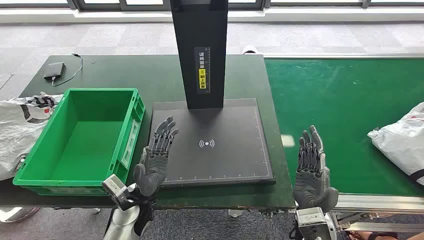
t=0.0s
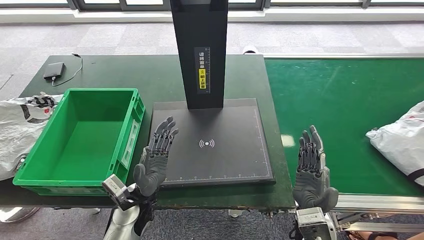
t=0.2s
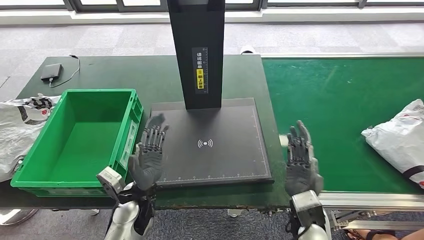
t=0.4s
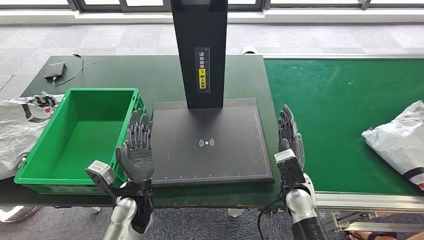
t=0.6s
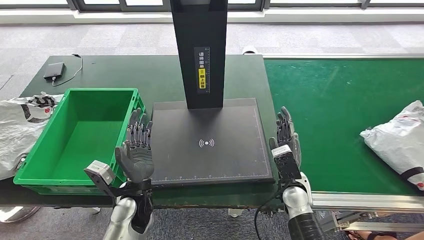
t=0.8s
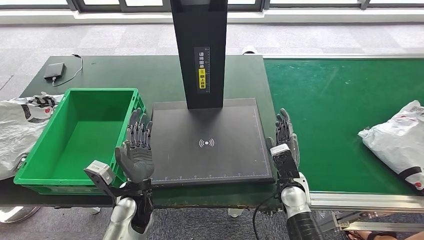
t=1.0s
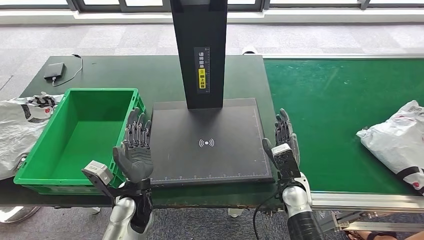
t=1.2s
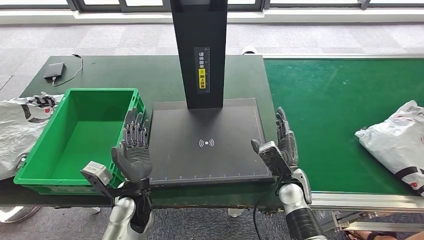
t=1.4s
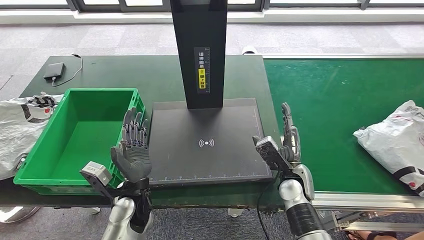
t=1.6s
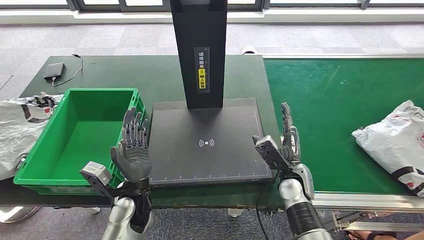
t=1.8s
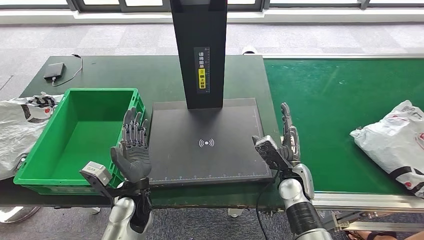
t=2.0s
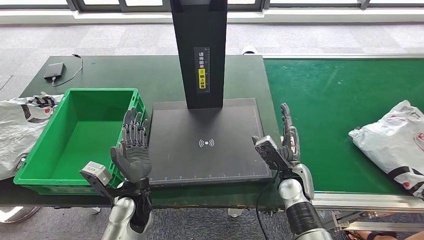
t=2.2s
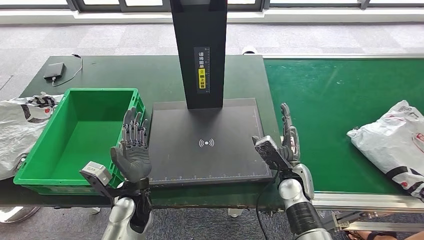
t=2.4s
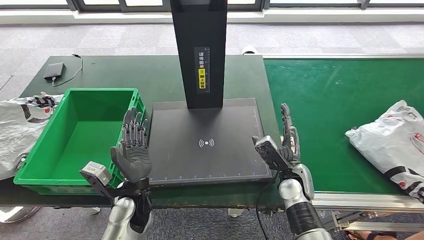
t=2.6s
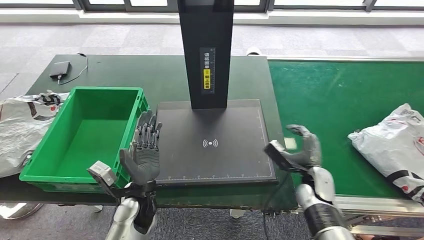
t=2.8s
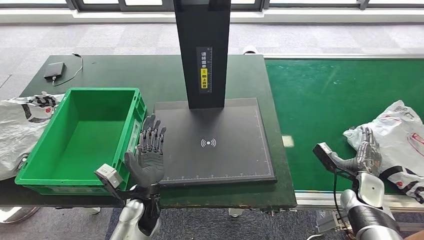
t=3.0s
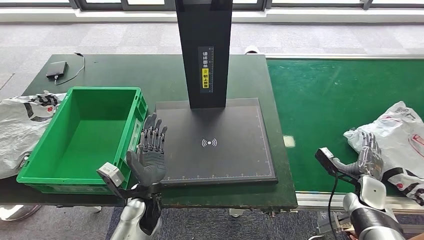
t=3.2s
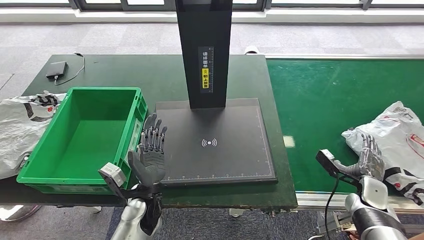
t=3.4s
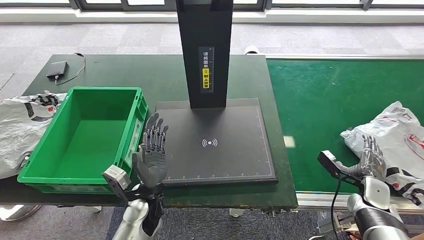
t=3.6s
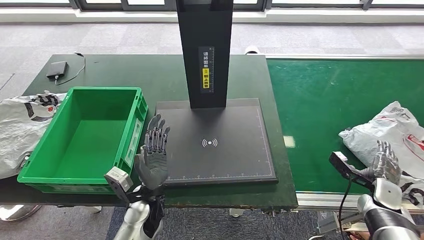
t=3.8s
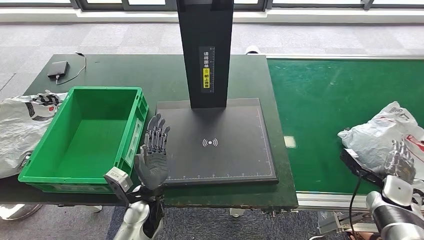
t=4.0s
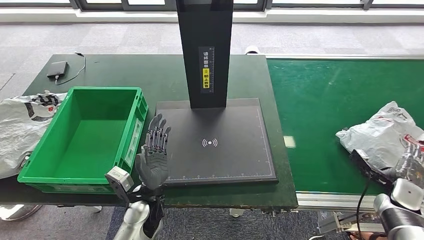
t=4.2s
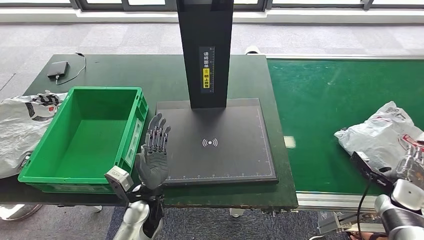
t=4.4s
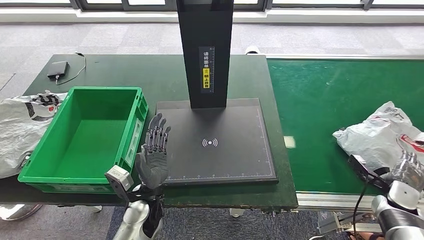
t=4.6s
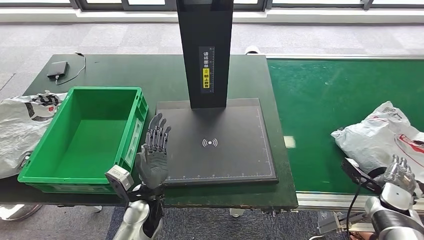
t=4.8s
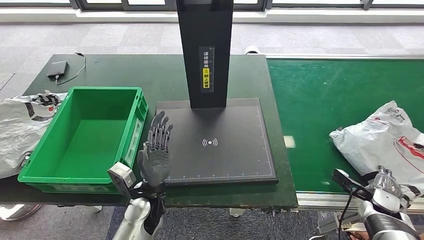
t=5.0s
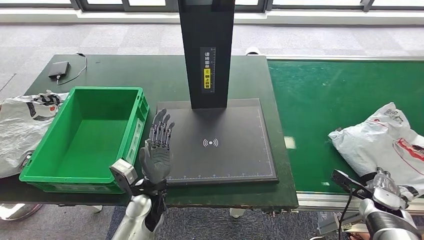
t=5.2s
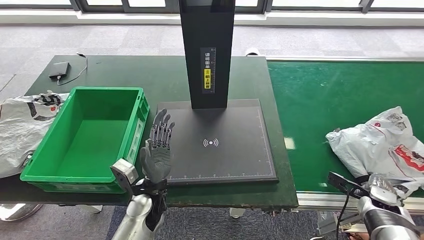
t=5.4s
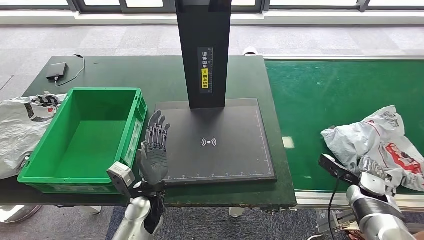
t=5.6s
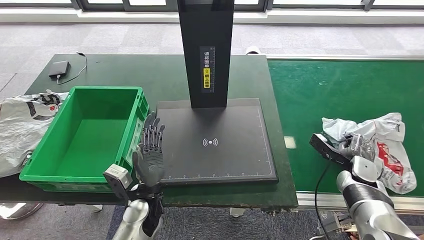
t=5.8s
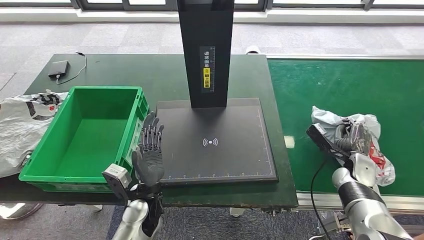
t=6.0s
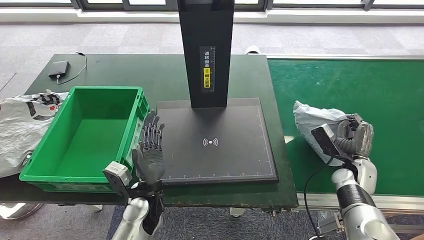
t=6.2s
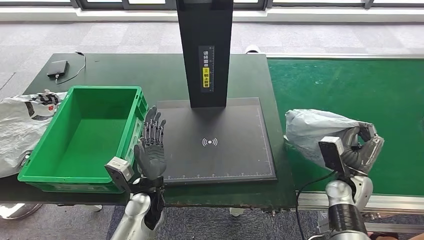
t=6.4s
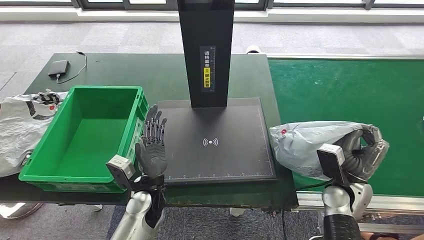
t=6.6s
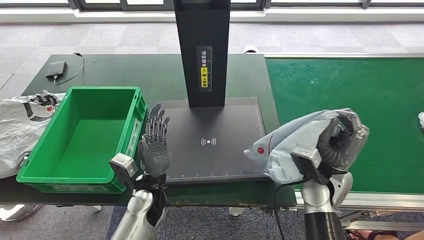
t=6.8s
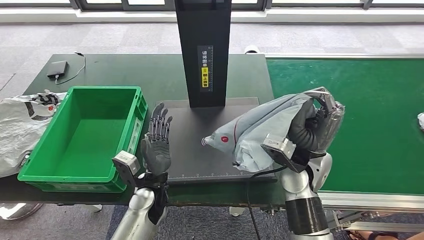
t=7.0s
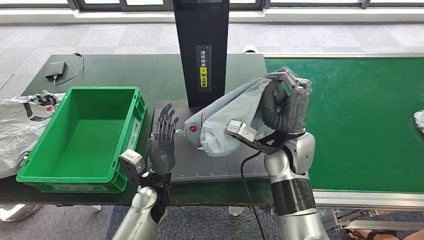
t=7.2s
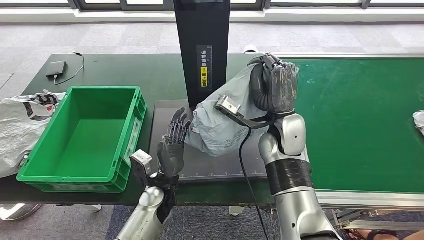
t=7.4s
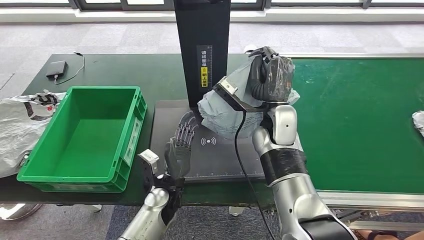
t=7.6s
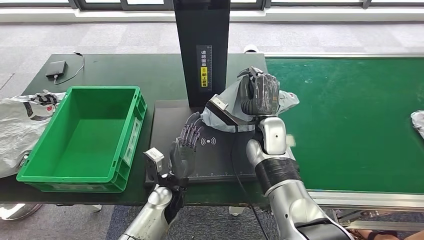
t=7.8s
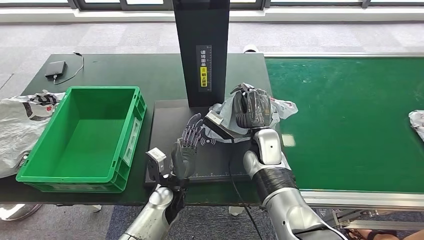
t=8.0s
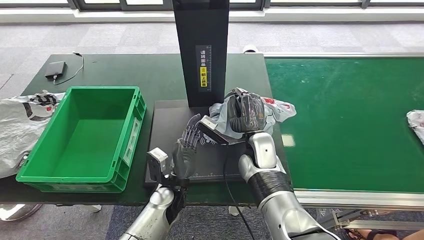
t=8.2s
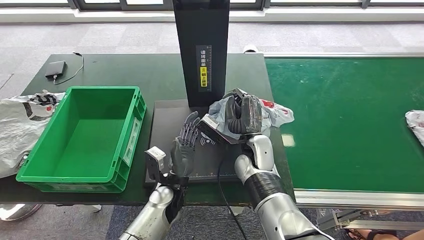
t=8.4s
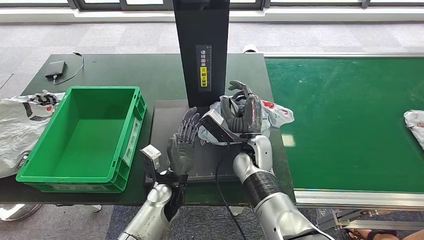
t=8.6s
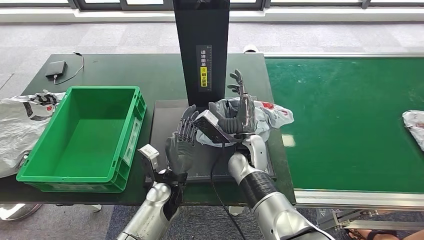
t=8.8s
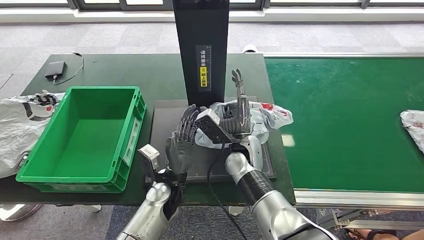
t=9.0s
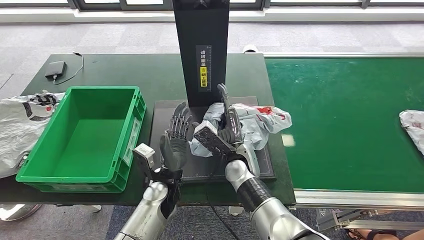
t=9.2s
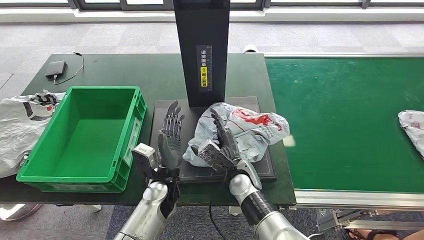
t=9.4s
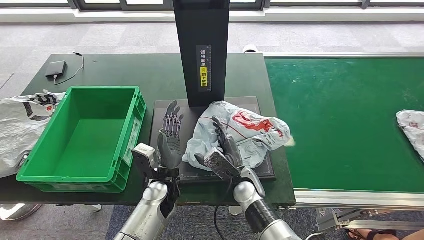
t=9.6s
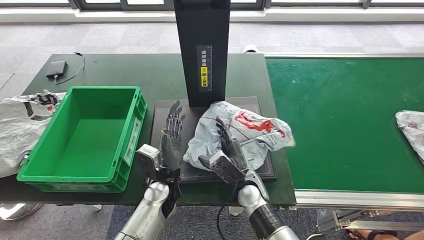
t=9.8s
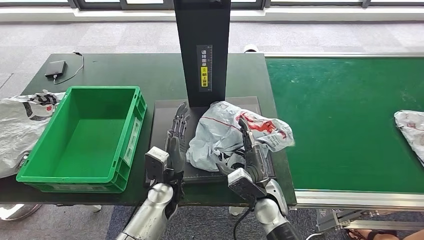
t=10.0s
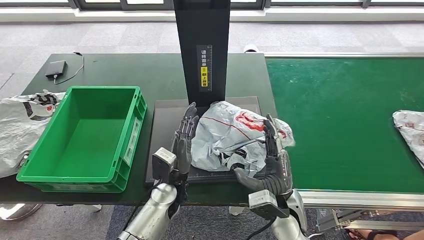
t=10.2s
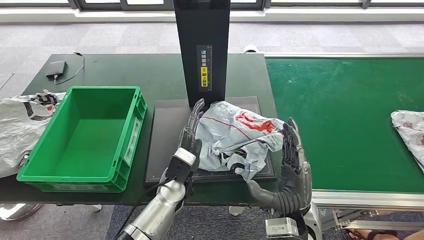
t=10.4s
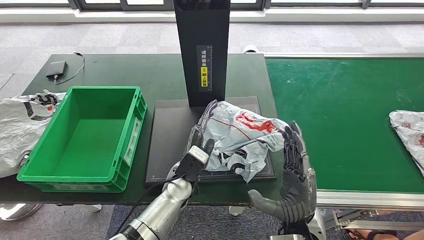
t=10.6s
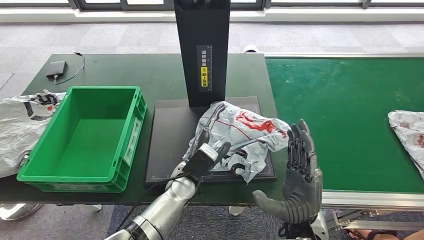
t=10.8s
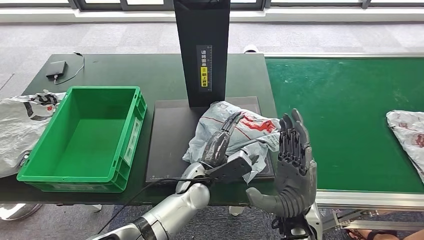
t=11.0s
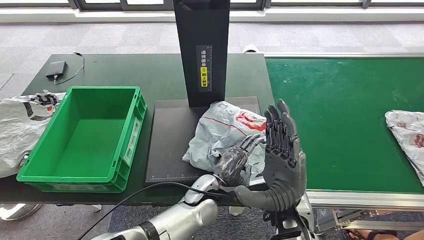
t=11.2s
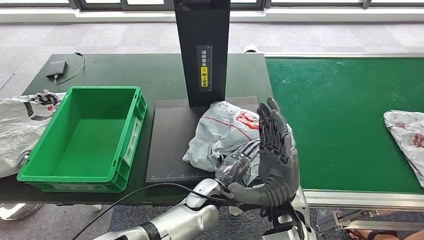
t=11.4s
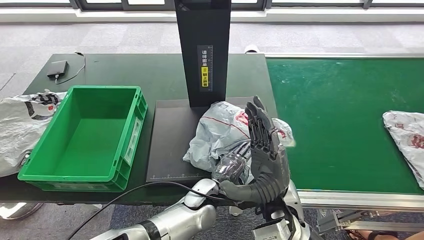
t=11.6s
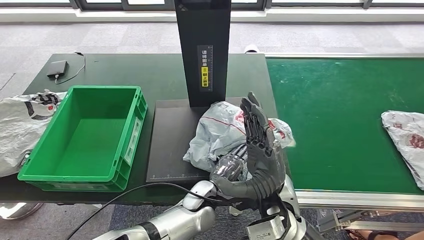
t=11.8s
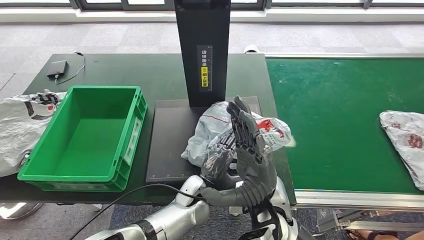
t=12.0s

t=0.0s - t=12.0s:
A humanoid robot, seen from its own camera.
Step, t=0.0s - t=6.4s: Take the parcel off the conveyor belt.
Step, t=6.6s - t=10.2s: Place the parcel onto the inbound machine.
t=1.6s - t=3.0s: The right hand goes approximately 20 cm to the right.
t=3.0s - t=4.4s: The right hand moves to the right, roughly 10 cm.
t=4.4s - t=6.0s: The right hand goes about 15 cm to the left and forward.
t=7.6s - t=9.0s: The right hand travels downward and to the left by some 10 cm.
t=9.0s - t=10.4s: The right hand moves backward and to the right, some 20 cm.
t=10.4s - t=12.0s: The right hand goes about 10 cm to the left and upward.

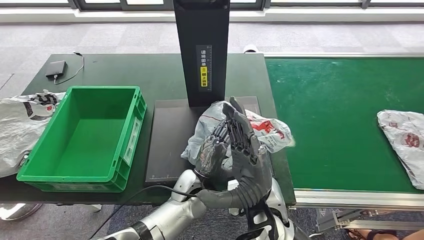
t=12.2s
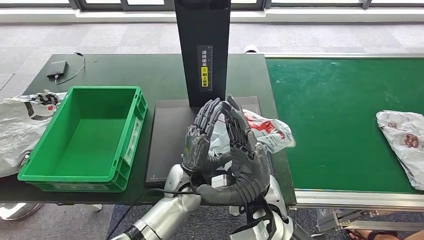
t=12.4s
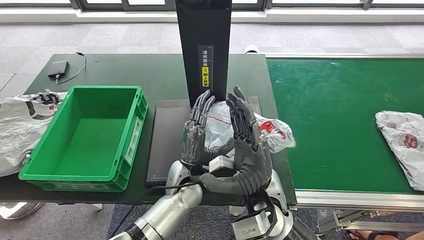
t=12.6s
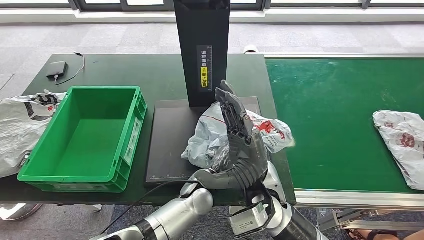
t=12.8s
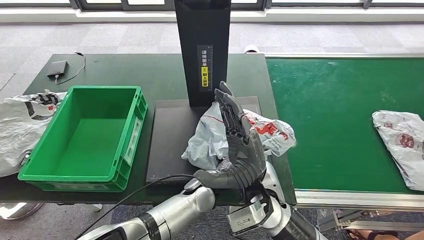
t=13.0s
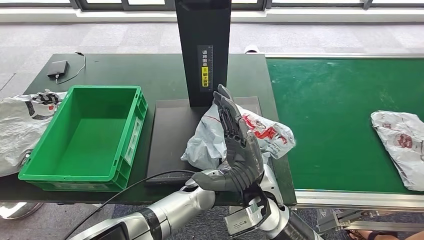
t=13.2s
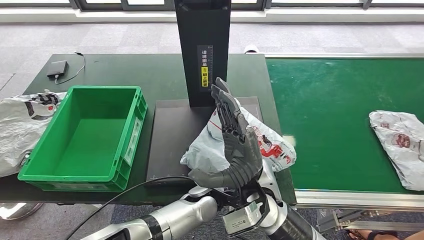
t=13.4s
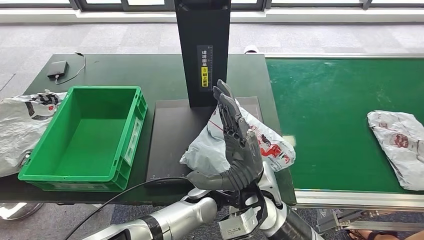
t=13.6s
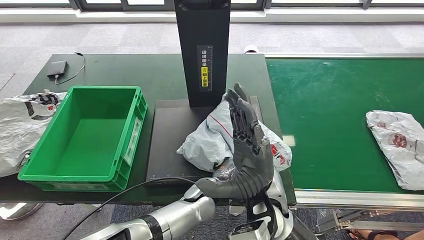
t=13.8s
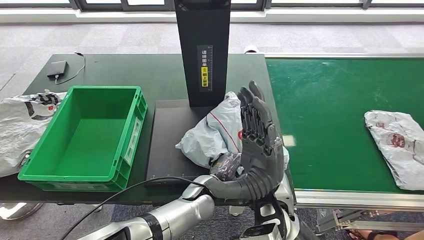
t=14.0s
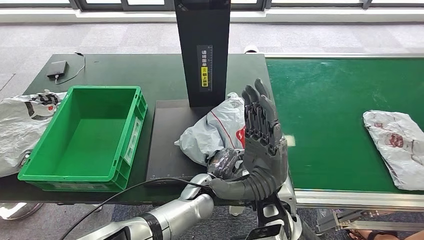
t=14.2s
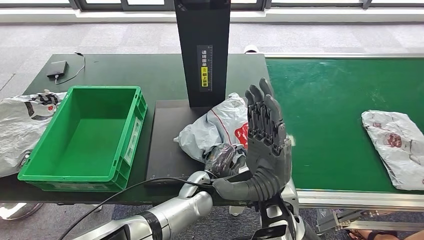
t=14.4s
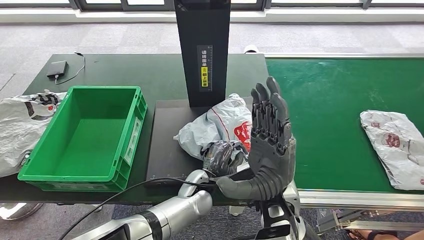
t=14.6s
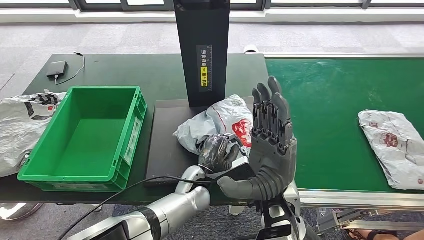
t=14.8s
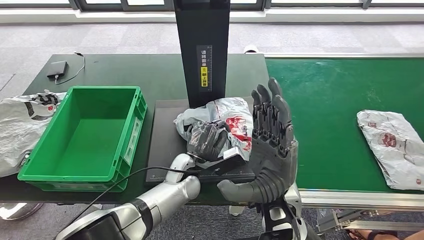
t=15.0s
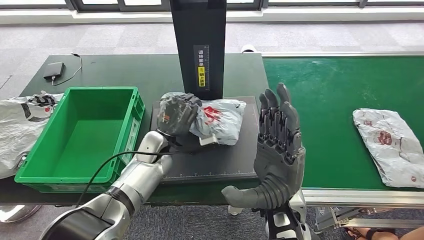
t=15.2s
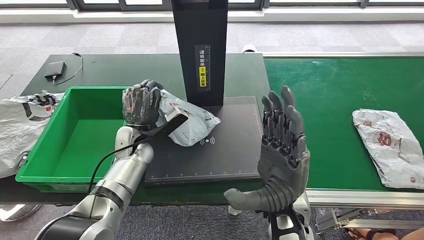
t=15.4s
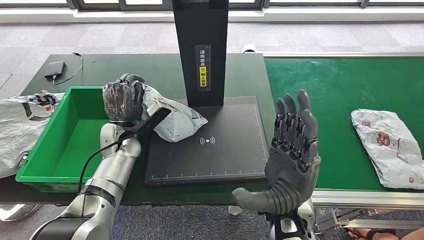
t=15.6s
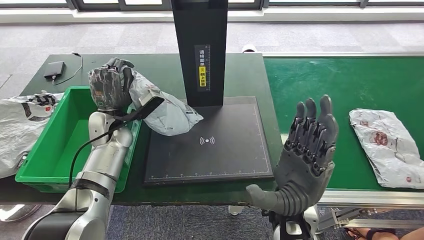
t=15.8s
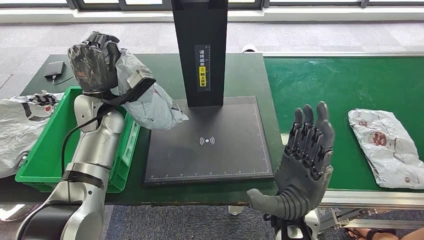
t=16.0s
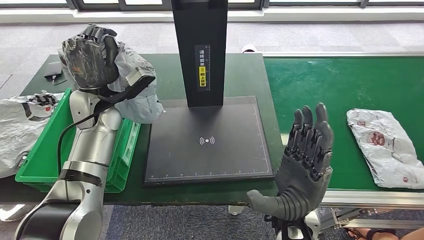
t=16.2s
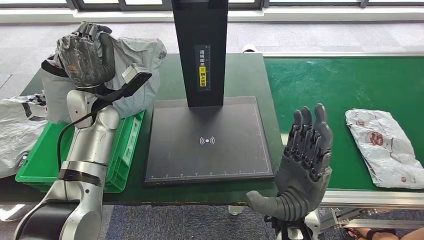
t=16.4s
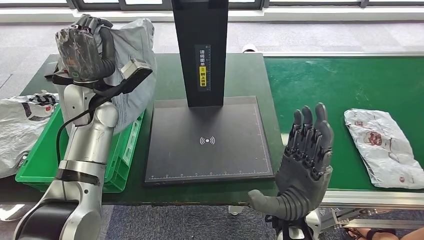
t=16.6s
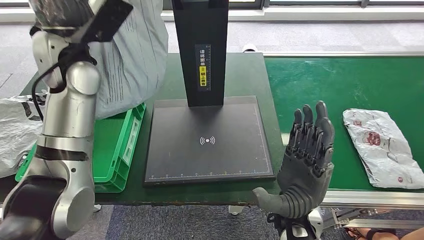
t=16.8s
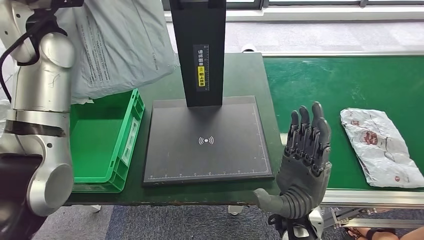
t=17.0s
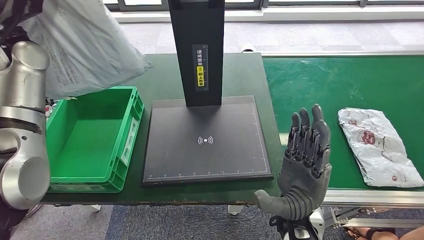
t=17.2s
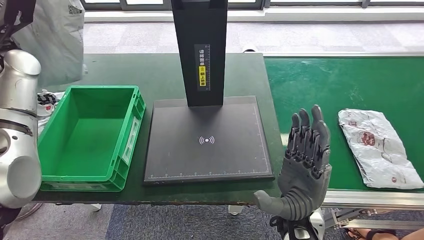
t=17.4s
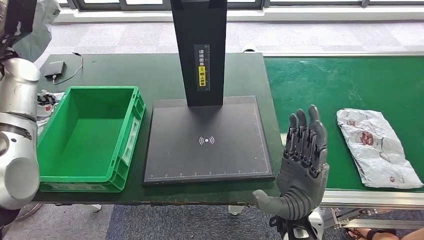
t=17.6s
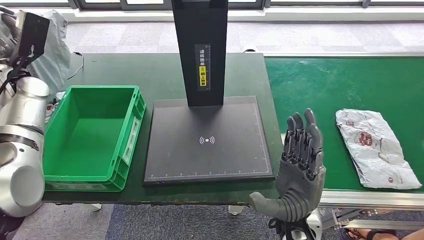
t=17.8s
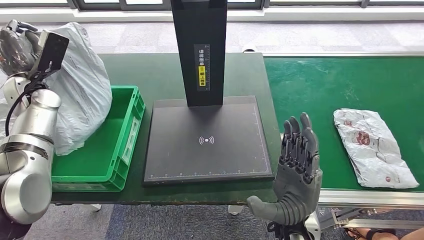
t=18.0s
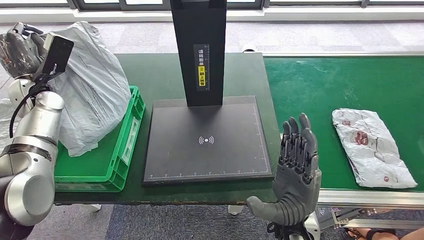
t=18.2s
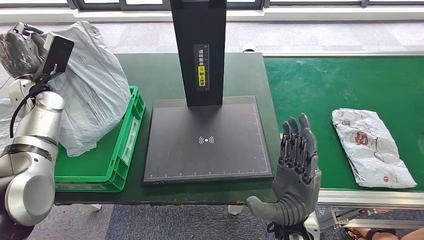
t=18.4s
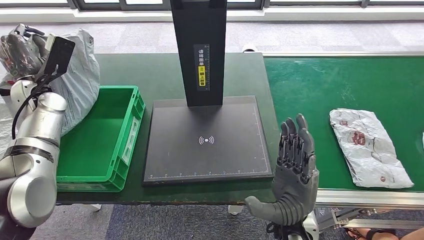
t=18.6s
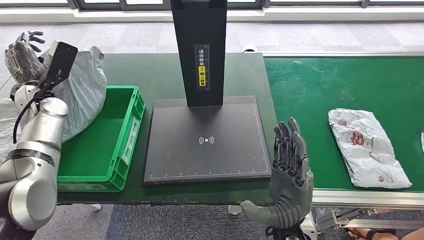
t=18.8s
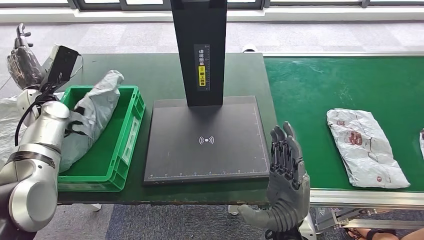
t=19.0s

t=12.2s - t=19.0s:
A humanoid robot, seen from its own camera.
Step, t=12.2s - t=17.4s: Pick up the parcel from the inbound machine.
